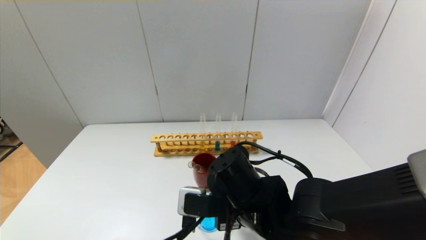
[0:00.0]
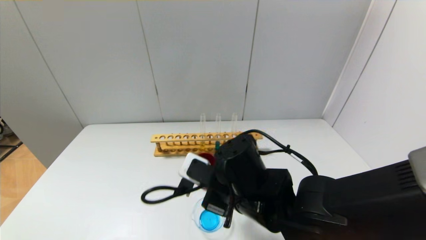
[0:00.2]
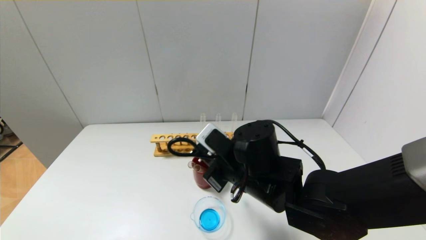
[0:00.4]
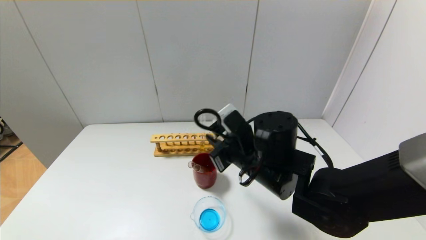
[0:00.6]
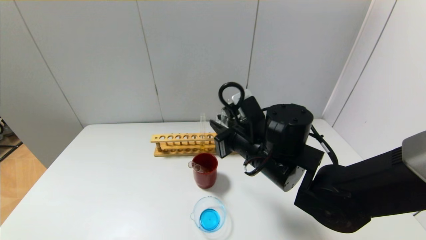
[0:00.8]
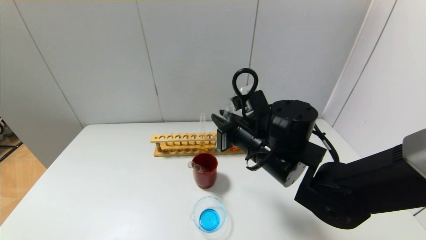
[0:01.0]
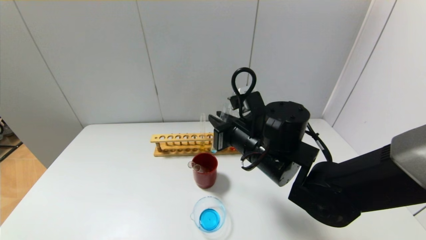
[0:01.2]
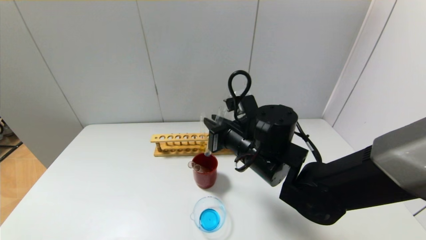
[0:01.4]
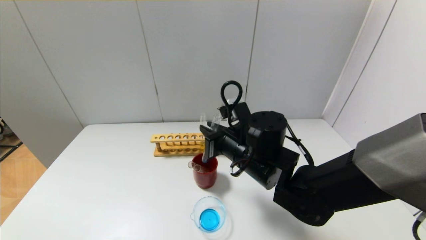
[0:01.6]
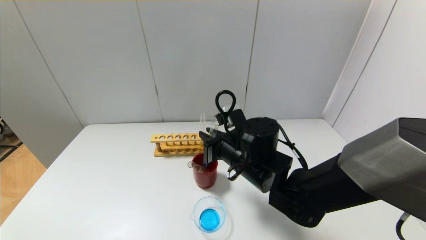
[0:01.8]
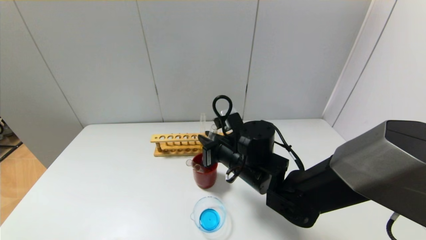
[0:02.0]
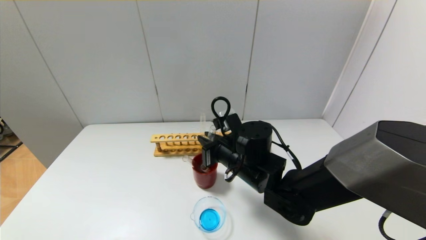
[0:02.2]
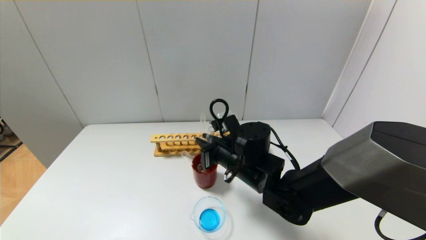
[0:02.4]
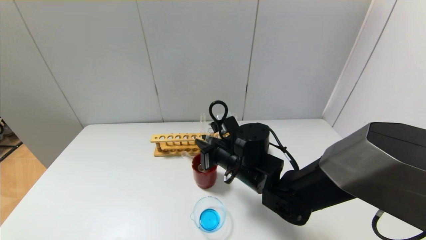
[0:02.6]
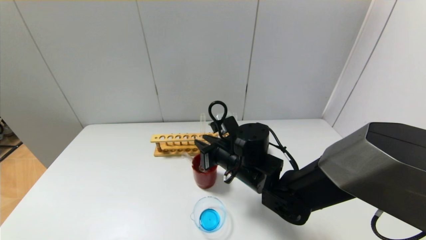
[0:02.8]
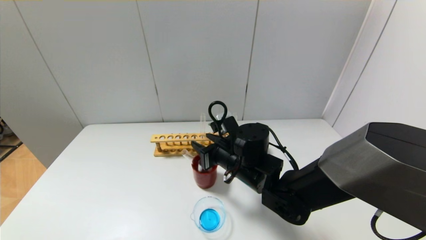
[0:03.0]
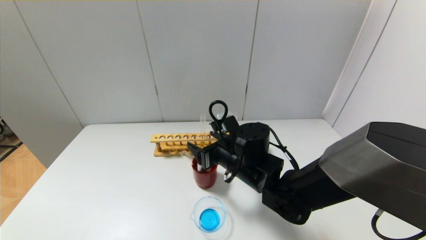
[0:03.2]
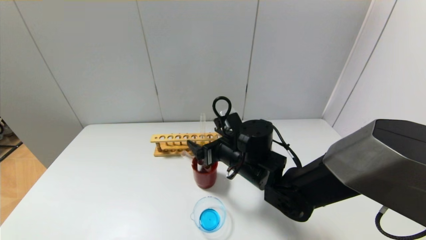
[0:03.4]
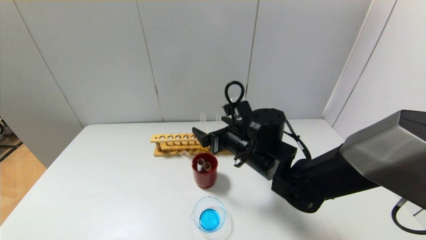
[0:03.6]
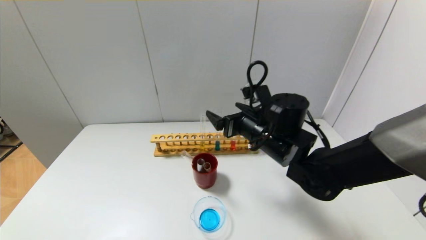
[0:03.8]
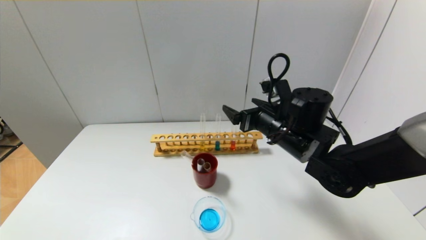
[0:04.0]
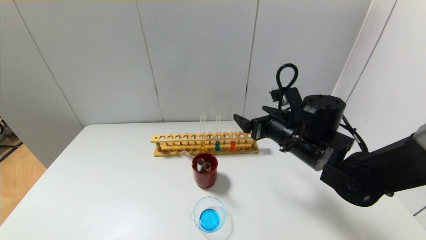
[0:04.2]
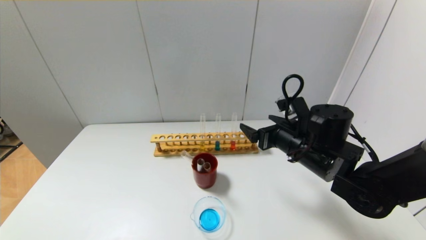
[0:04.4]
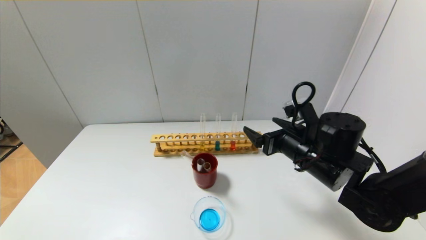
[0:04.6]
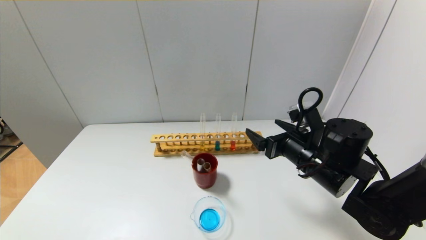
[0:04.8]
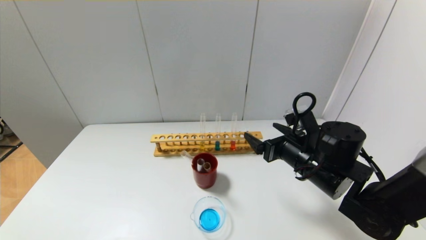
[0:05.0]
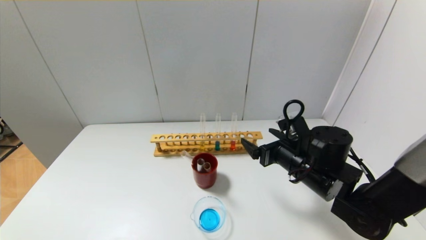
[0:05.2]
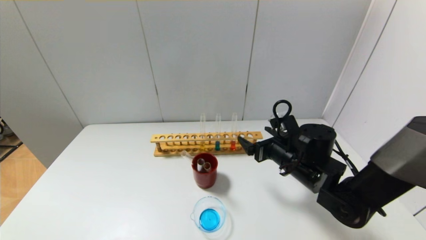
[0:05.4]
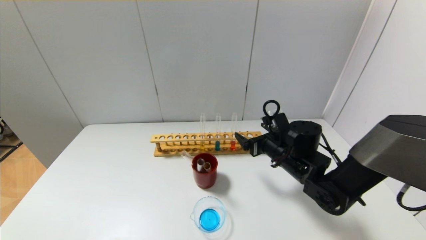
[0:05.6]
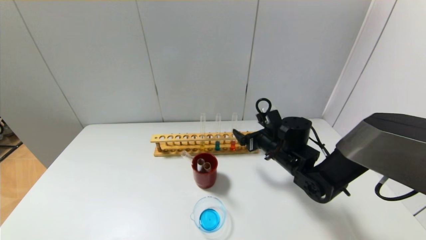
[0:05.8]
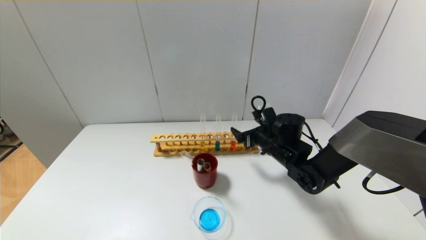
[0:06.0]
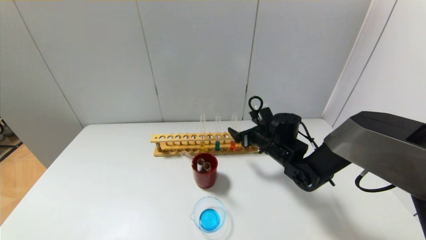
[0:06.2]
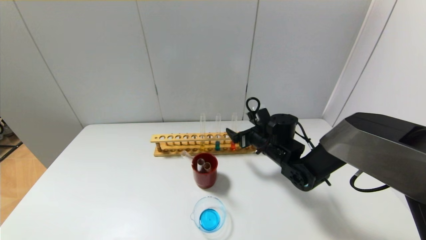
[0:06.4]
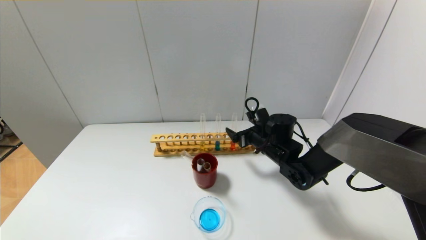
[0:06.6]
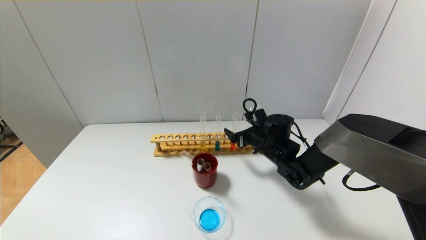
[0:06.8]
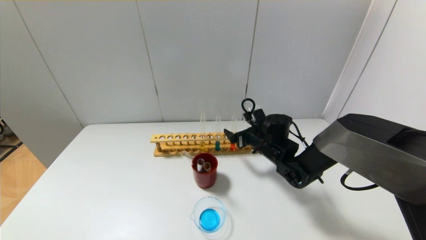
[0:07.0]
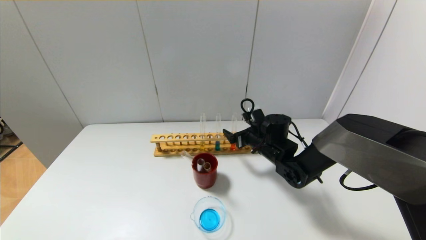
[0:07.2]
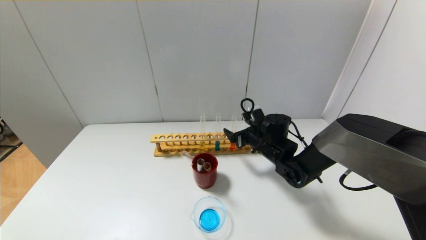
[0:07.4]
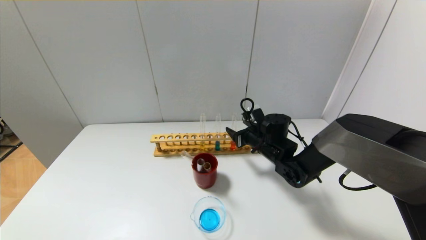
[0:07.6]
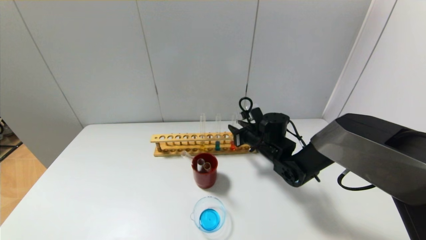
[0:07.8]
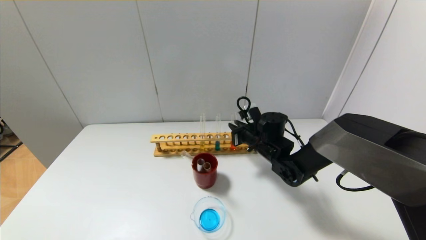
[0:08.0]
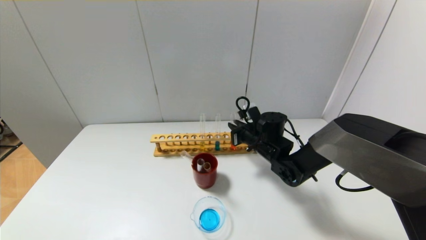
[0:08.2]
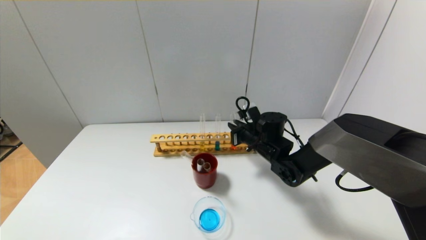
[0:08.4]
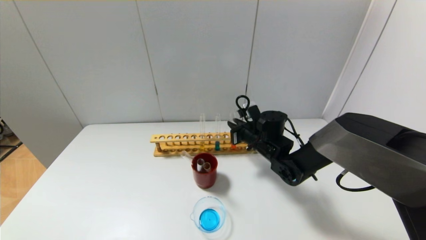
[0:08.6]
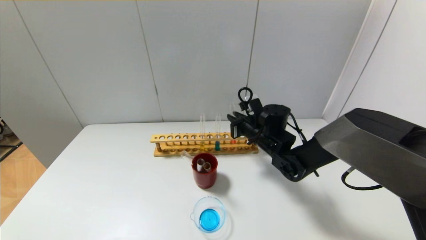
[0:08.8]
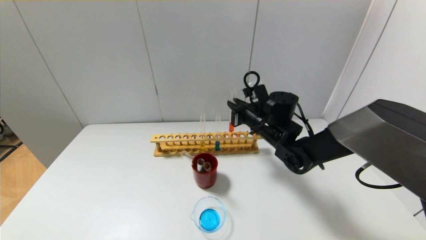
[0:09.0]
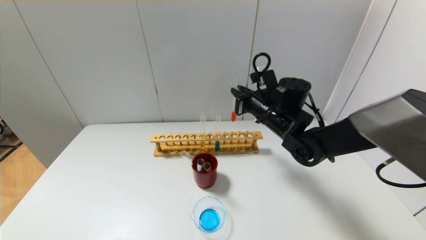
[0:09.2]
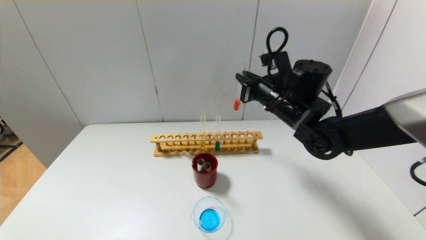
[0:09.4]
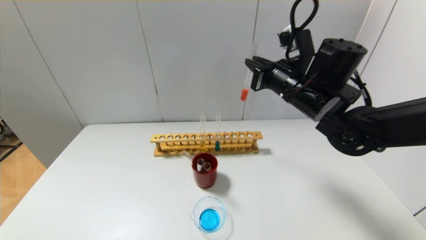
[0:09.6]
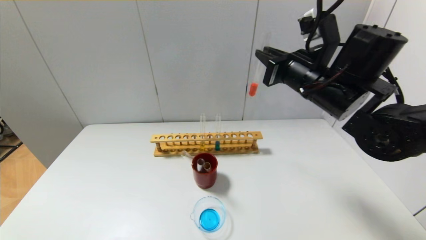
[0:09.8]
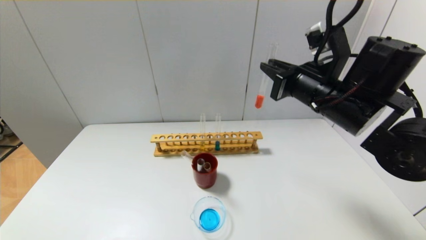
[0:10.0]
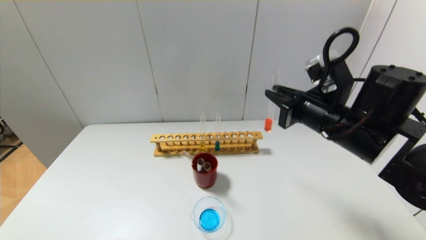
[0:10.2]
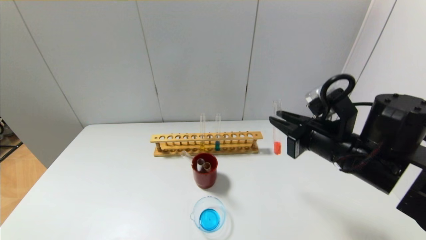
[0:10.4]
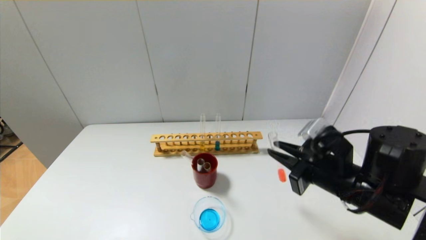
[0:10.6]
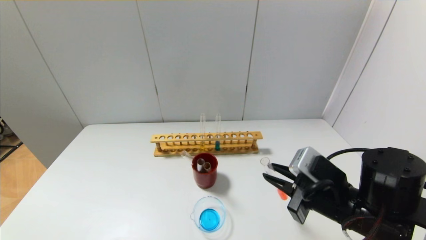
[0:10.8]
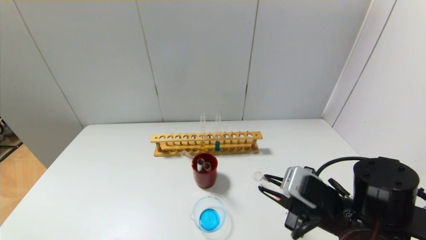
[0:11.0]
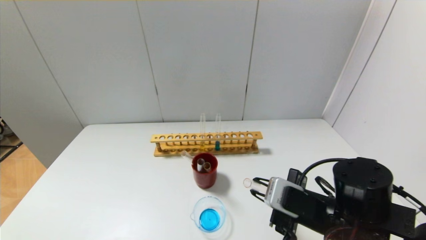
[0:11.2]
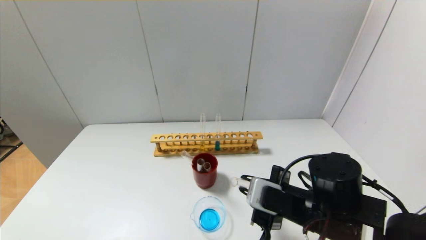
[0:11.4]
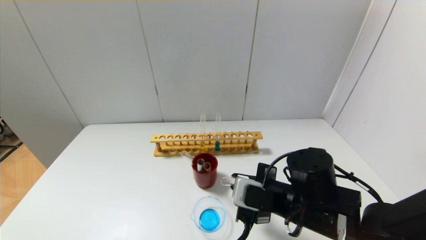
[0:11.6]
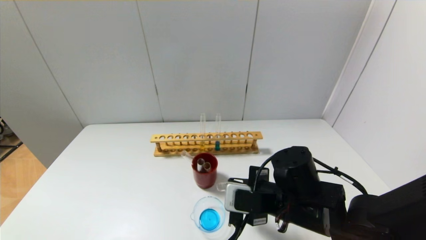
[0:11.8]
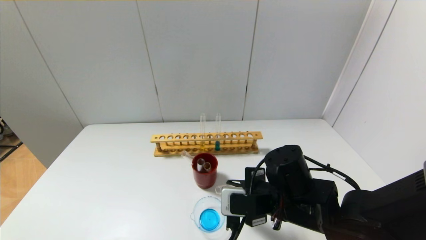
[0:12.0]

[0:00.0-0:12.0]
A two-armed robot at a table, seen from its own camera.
Step, 0.0 to 3.4 s: Place the test tube into the brown cup with the right gripper.
Step, 3.6 to 8.0 s: Grasp the red reagent with the right gripper.
0.0 to 1.6 s: The right gripper heads forward, covering roughly 10 cm.
1.6 to 3.0 s: The right gripper opens.
3.0 to 4.4 s: The right gripper goes approximately 10 cm to the right, and opens.
4.4 to 6.0 s: The right gripper moves forward and downward, about 10 cm.
6.0 to 7.6 s: The right gripper closes its fingers.
7.6 to 9.0 s: The right gripper travels upward by some 10 cm, and closes.
9.0 to 10.4 s: The right gripper heads backward and to the right, covering some 20 cm.
10.4 to 12.0 s: The right gripper shifts some 15 cm downward and to the left.

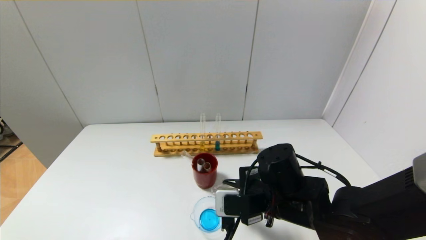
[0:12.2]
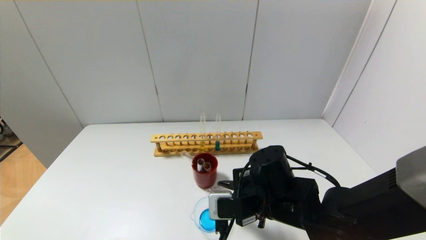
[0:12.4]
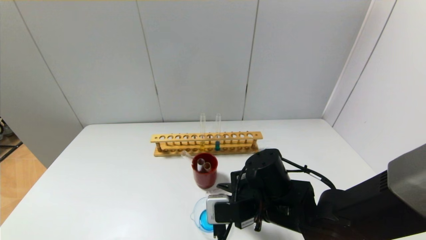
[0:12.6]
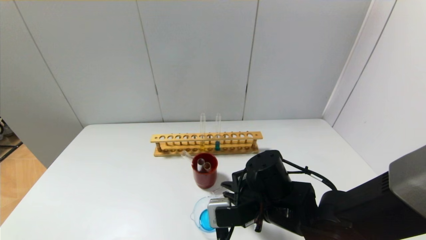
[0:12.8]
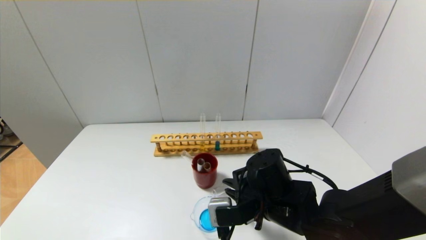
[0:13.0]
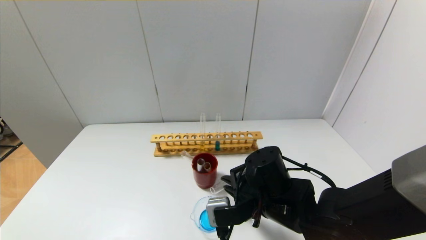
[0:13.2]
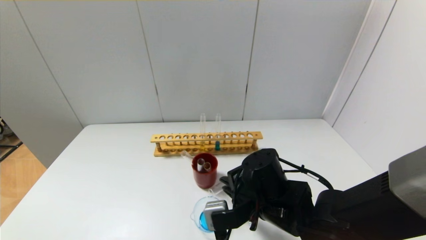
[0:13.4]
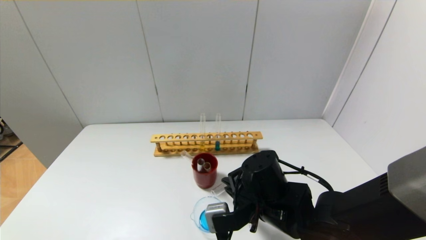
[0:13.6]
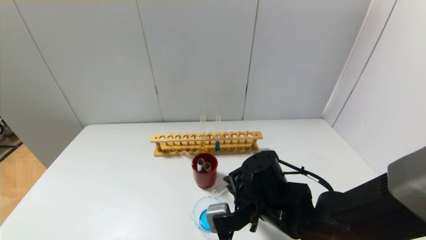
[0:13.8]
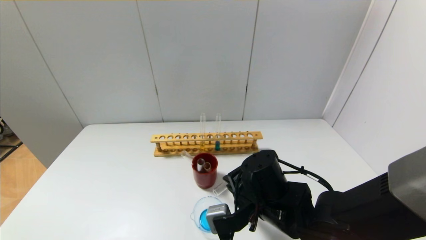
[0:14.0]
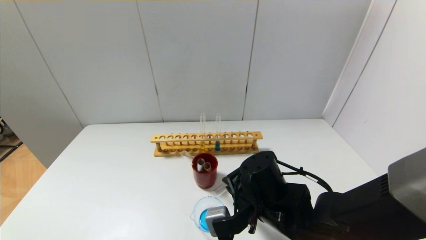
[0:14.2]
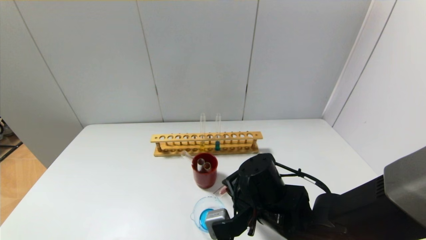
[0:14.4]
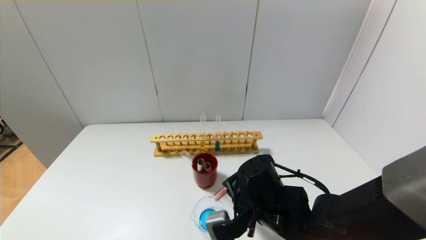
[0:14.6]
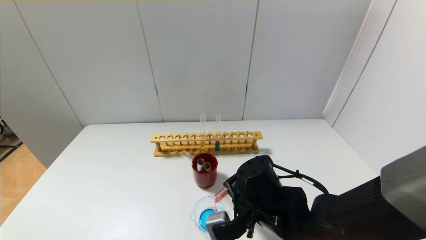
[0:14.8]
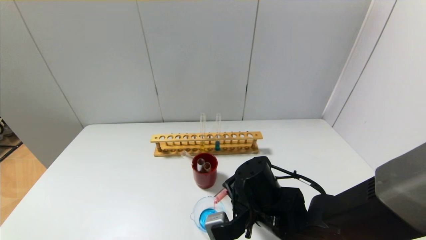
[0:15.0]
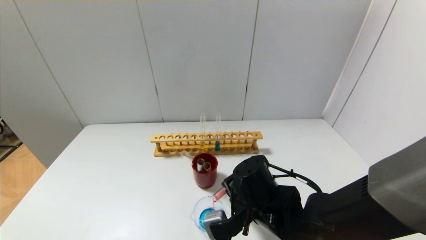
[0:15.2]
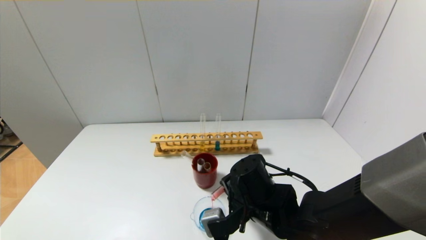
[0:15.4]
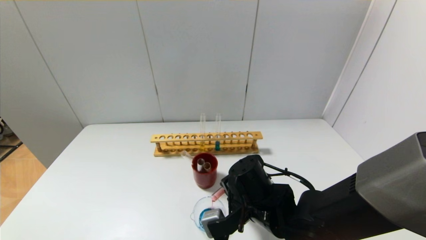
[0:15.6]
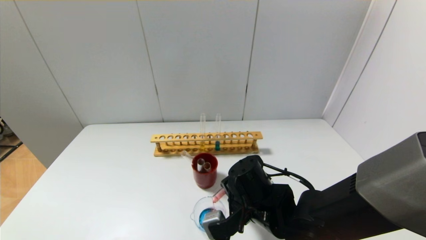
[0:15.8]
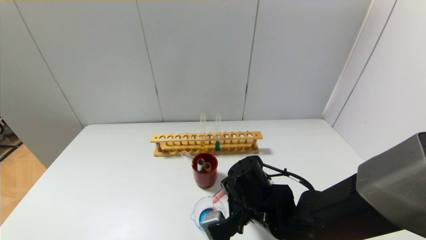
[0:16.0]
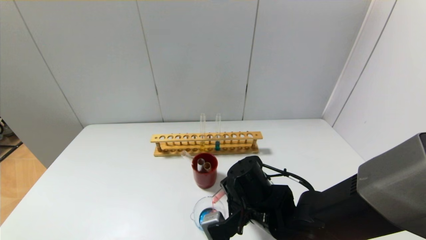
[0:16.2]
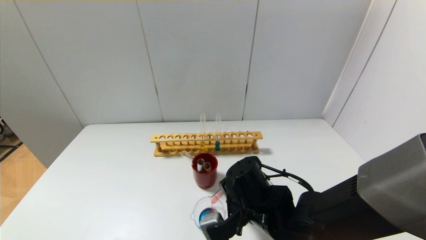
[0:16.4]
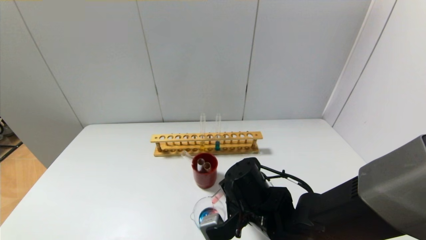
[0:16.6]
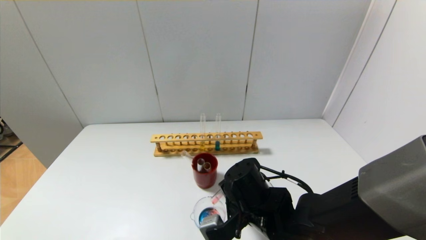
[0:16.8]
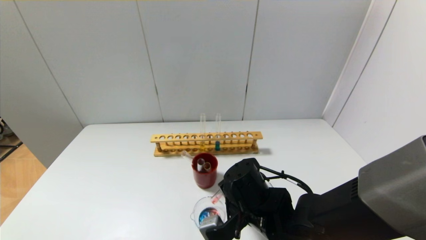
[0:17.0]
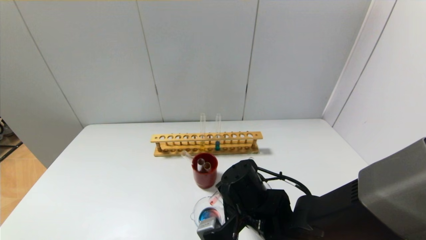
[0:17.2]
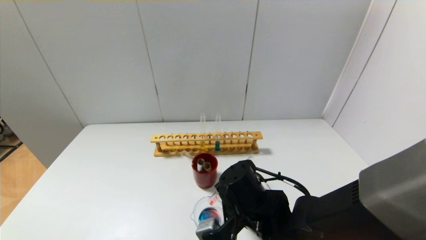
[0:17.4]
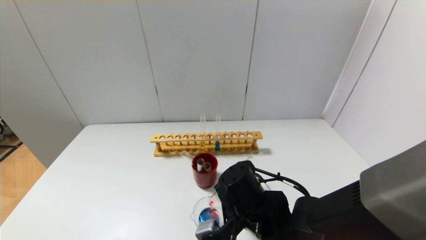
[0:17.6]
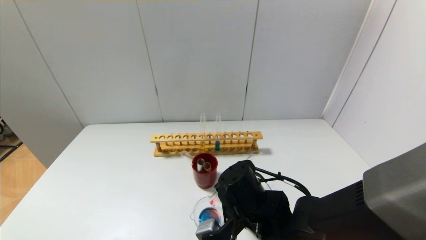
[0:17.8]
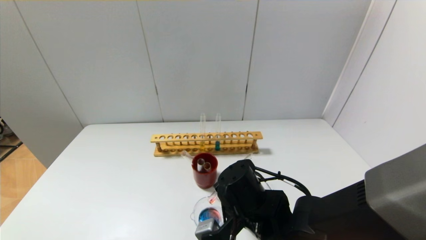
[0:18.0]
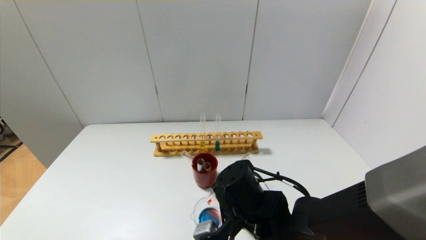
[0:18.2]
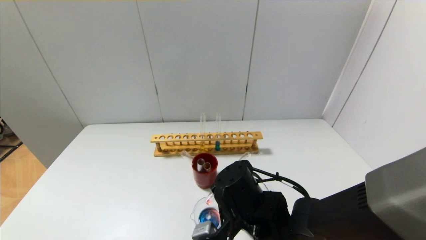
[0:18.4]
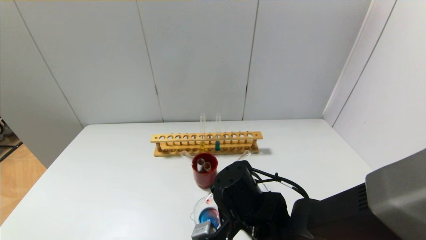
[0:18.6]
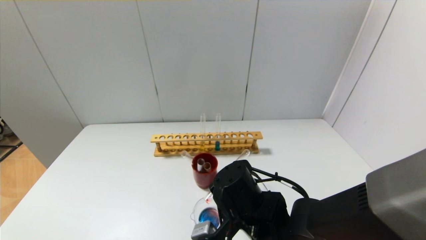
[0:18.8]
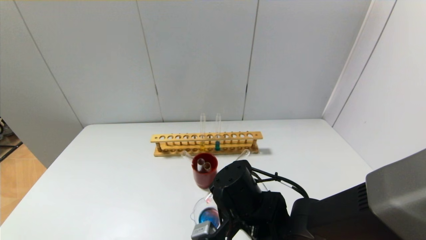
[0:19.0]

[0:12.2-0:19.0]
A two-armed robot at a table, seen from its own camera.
13.6 to 15.0 s: The grippers make only small movements.
15.0 to 16.2 s: Both grippers stay put.
16.2 to 19.0 s: The grippers move only a little.
